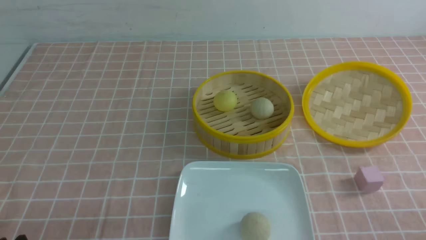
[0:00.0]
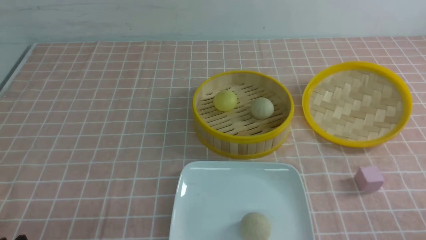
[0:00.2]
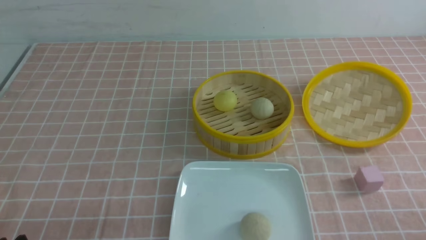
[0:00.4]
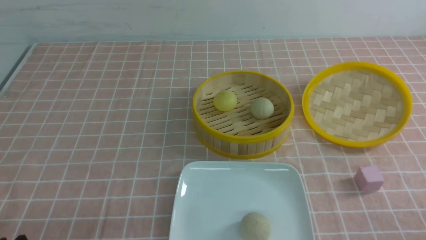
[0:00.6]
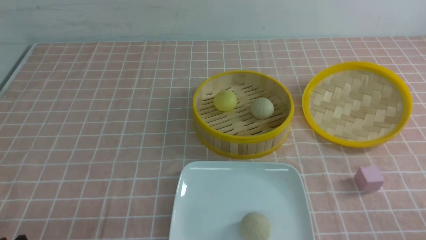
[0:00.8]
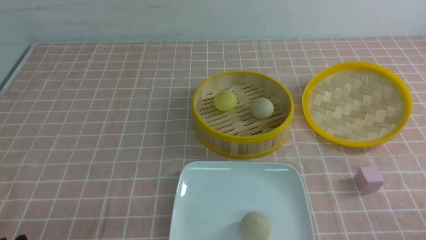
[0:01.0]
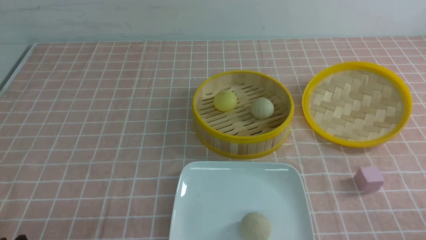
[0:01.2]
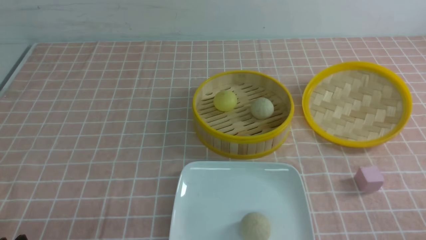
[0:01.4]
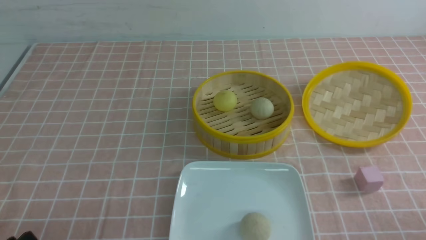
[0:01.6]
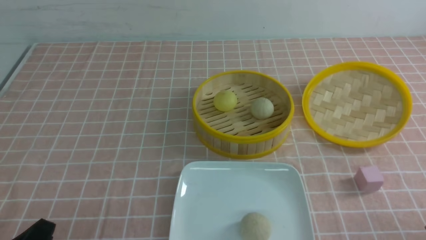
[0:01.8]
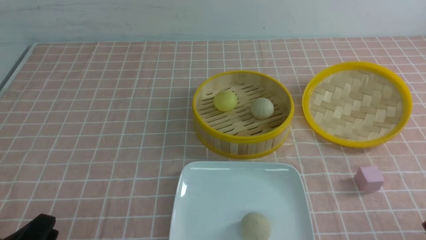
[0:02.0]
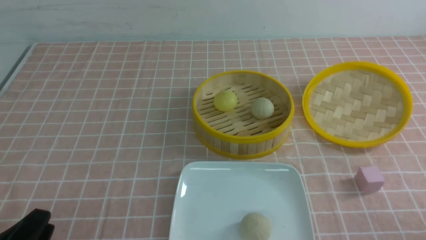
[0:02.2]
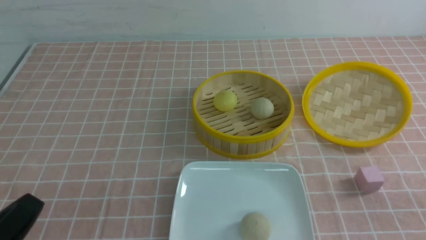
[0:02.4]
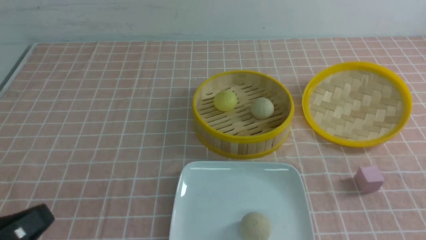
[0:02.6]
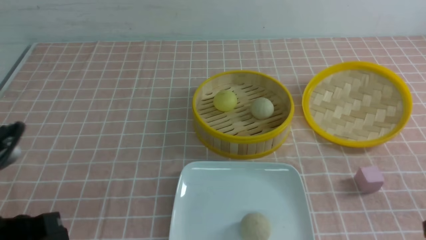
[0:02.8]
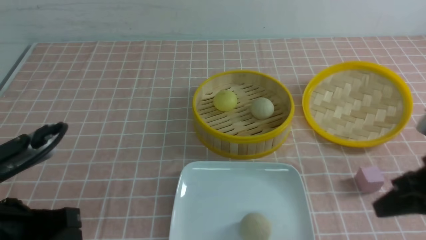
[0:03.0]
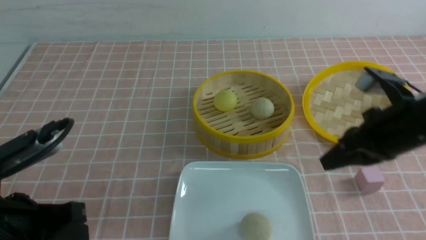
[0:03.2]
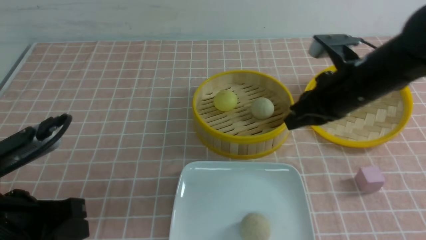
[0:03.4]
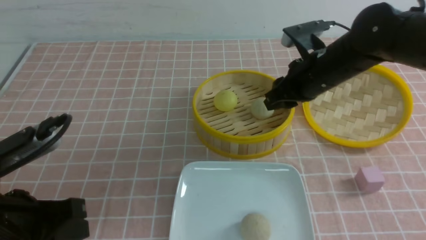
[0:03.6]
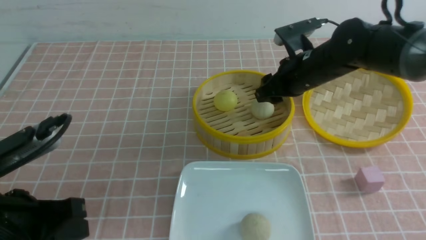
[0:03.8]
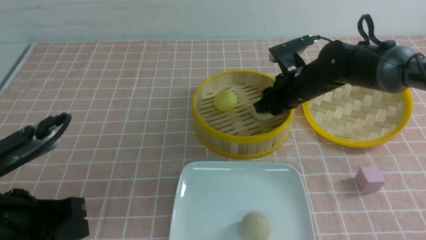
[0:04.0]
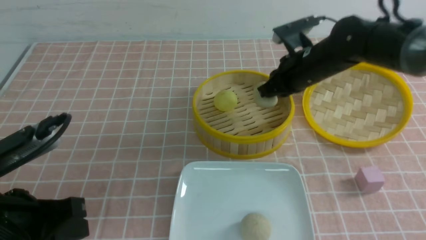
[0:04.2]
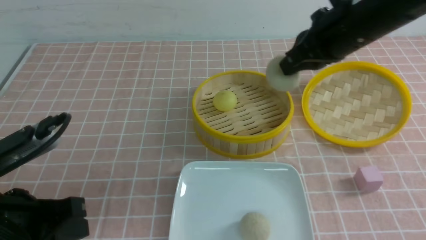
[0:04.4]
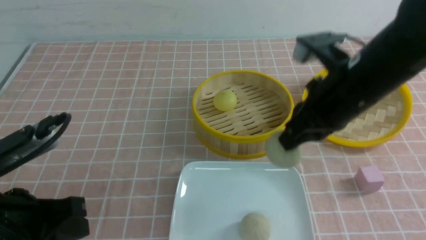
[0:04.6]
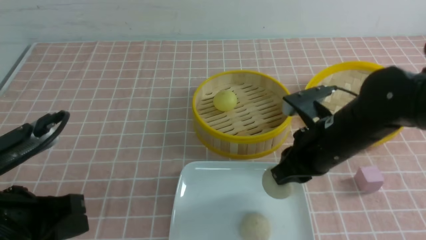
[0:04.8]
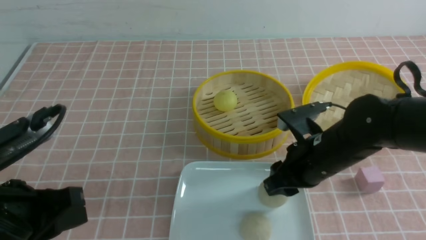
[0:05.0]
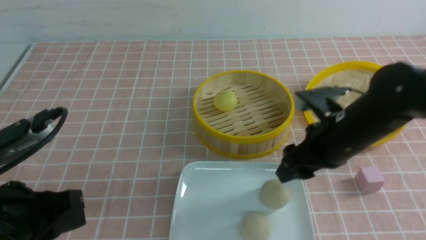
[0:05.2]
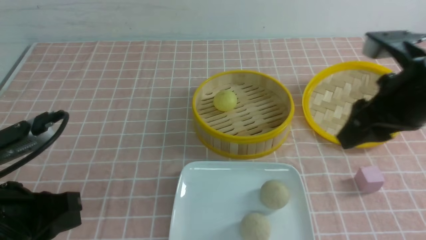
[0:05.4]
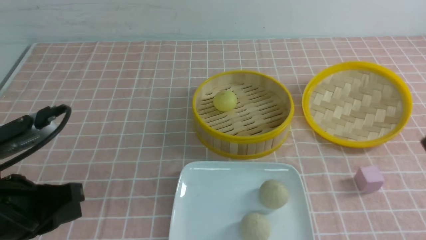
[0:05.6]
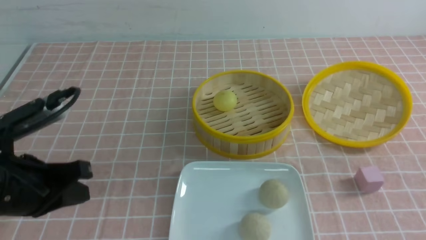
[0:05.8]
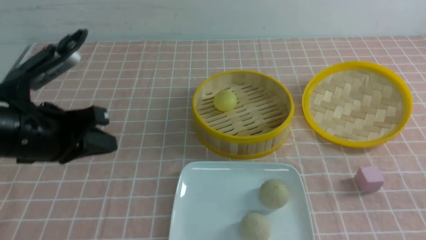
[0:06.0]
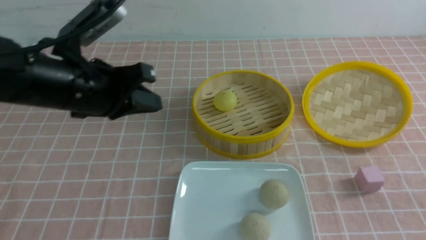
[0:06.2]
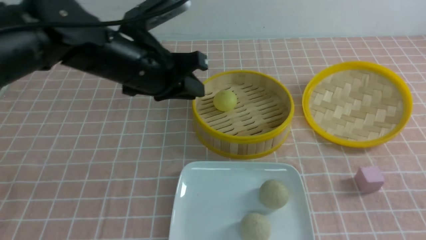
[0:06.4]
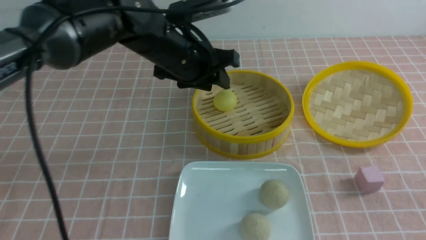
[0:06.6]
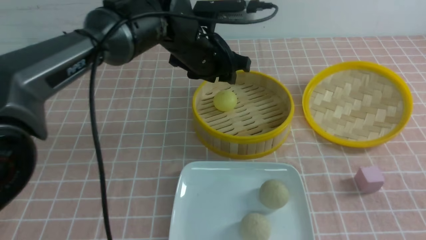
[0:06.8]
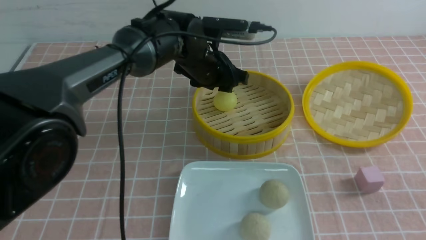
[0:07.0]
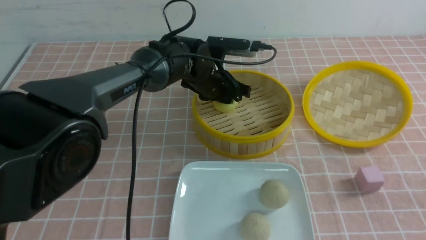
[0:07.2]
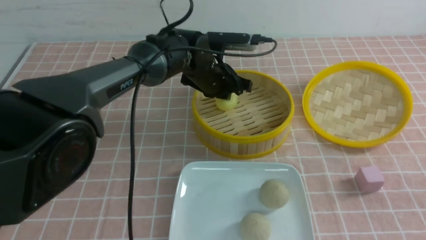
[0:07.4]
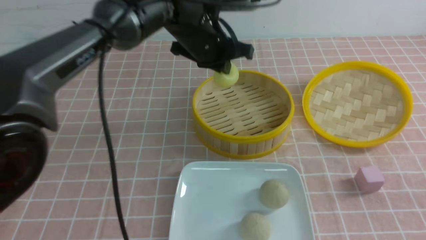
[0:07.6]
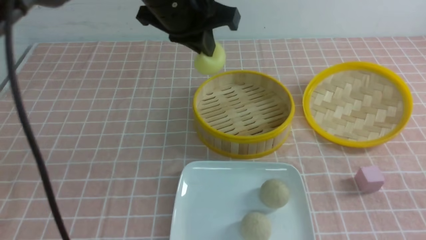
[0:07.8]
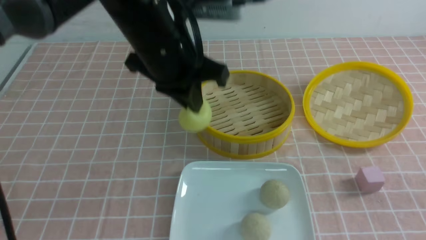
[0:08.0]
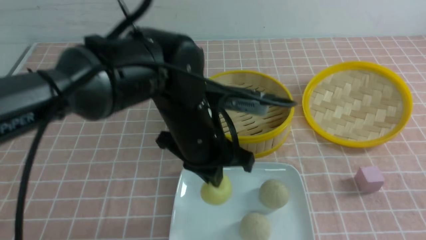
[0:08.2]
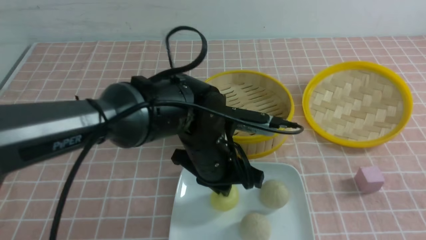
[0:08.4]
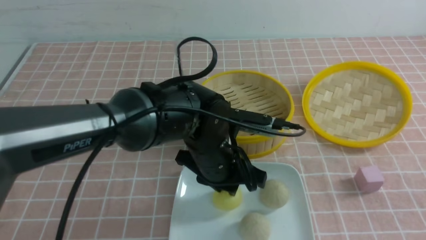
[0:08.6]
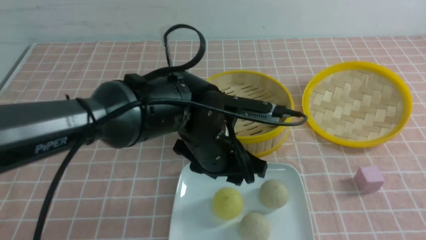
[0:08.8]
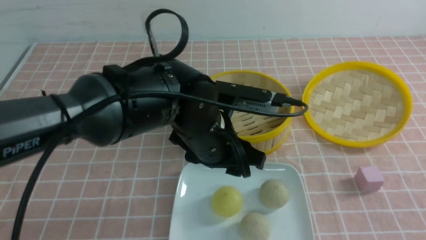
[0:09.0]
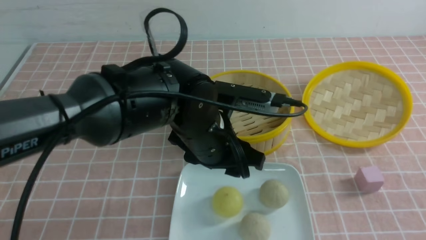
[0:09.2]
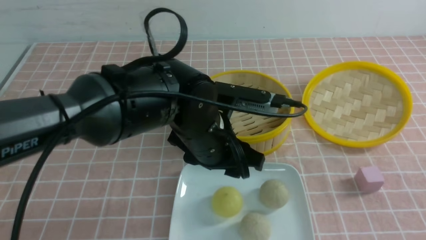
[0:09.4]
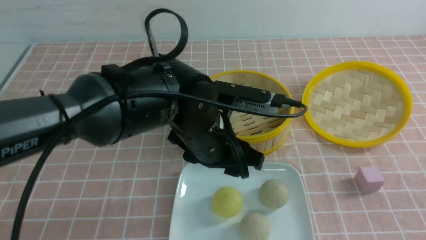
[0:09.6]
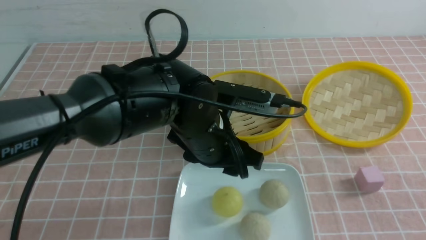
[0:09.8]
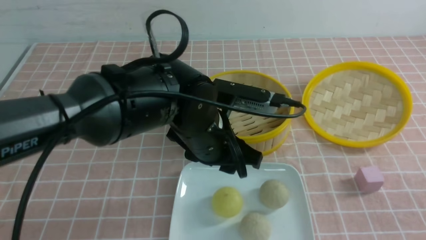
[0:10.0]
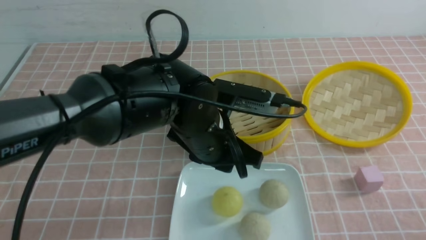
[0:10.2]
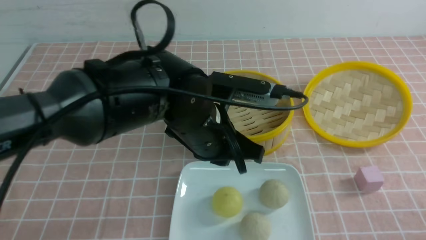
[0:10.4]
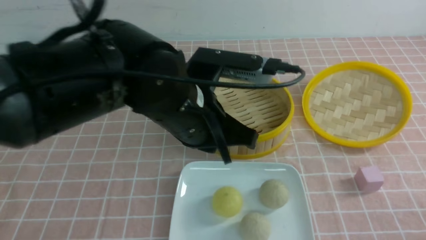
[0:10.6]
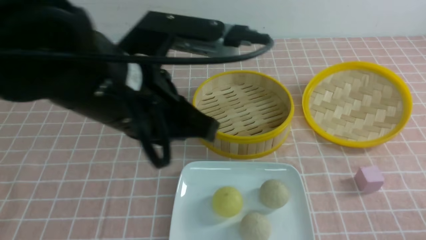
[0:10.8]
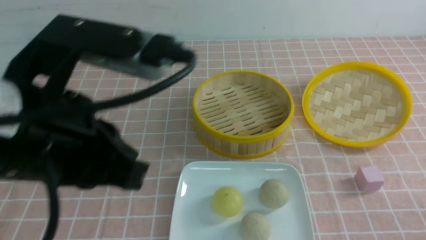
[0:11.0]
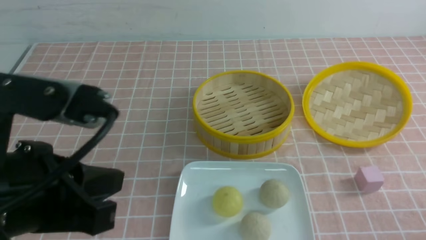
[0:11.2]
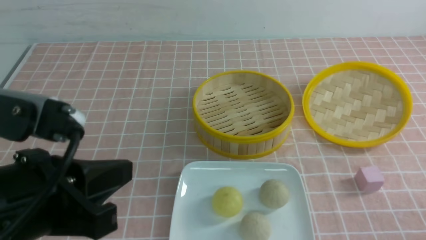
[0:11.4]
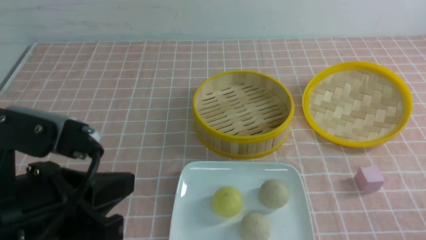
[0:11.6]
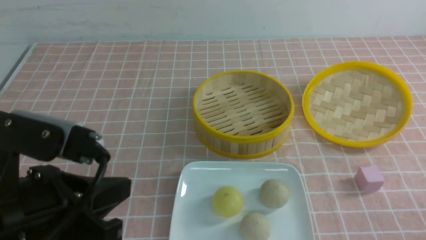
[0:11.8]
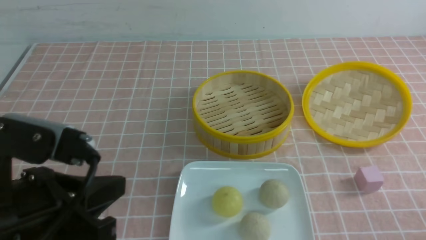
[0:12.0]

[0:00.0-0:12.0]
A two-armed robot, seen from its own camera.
Step, 0:00.0 to 0:04.0: use the right arm to grab the steamed stuffed bun that is closest to it.
Step, 0:04.2 to 0:05.0: use the right arm to put the steamed stuffed bun into the plate.
Step, 0:05.2 to 0:07.2: use the left arm to grab the steamed stuffed bun that is closest to it.
Step, 0:07.4 to 0:08.6: use the left arm to put the steamed stuffed bun into the plate.
0:01.6 to 0:03.0: The right gripper shifts some 20 cm forward and upward, and closes; the left gripper heads upward and forward, covering approximately 10 cm, and closes up.
0:03.0 to 0:04.4: The right gripper goes some 20 cm forward and to the left, and opens, then closes again.
0:04.4 to 0:06.0: The right gripper goes roughly 30 cm backward and to the right, and opens and closes again. Meanwhile the left gripper moves forward, about 10 cm.
0:06.0 to 0:07.6: The left gripper is displaced to the right and forward by some 25 cm, and opens, then closes again.
0:07.6 to 0:09.0: The right gripper moves backward, some 10 cm, while the left gripper is displaced backward and downward by some 15 cm, and opens up.
0:09.0 to 0:10.4: The left gripper closes up. The right gripper goes about 15 cm downward.
0:10.4 to 0:12.0: The left gripper goes about 25 cm to the left and backward.

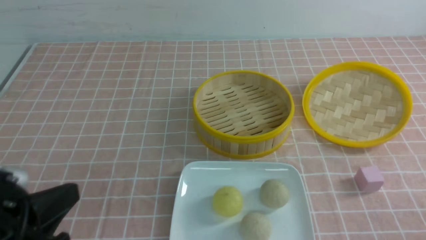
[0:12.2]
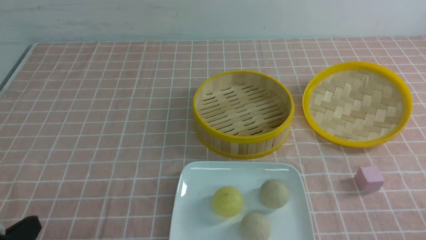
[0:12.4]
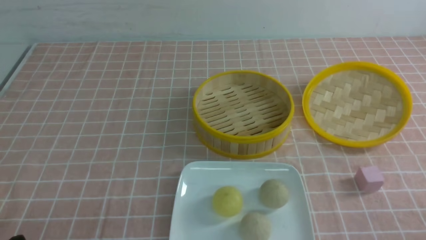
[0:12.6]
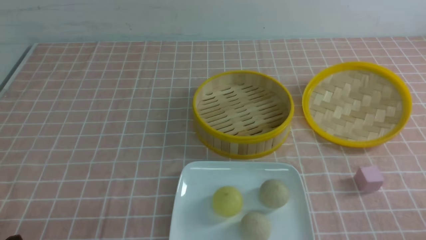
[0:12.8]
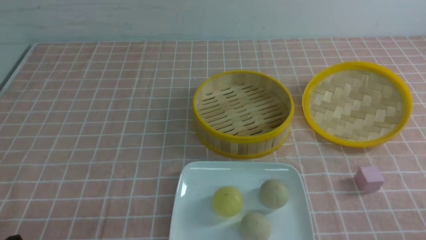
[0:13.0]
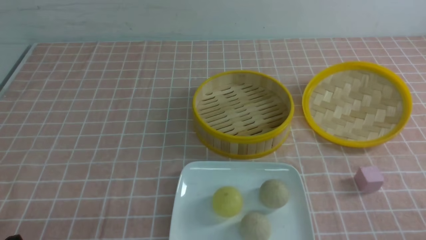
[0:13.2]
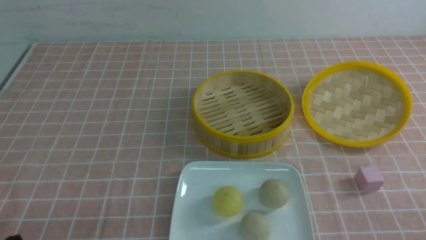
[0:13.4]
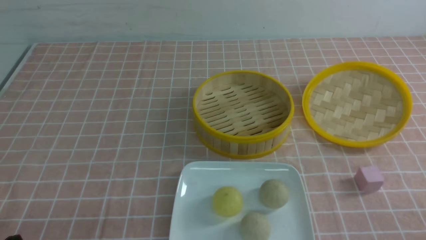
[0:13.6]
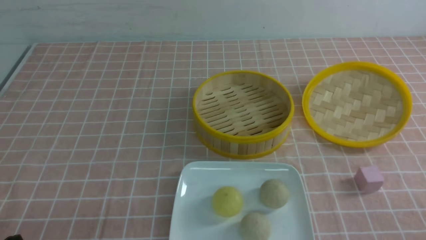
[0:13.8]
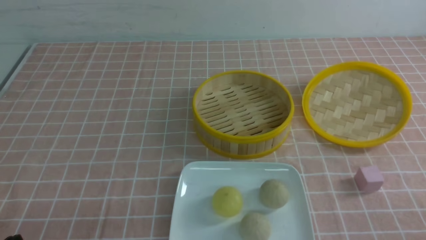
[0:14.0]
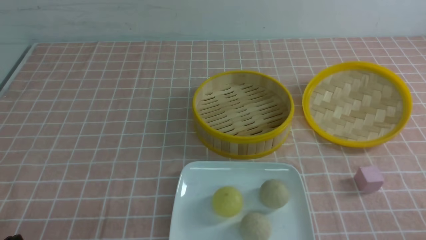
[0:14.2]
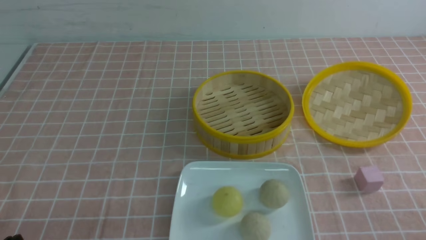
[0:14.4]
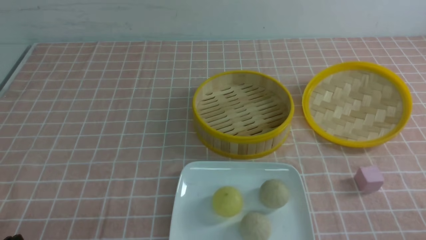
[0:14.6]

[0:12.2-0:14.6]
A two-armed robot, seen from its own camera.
0:12.2 to 0:13.4: The left gripper shifts some 10 cm downward.
0:13.4 to 0:14.6: Both grippers stay about where they are.
